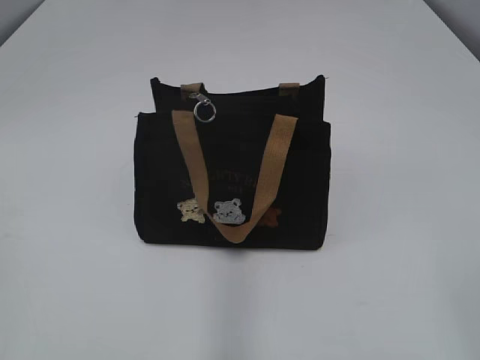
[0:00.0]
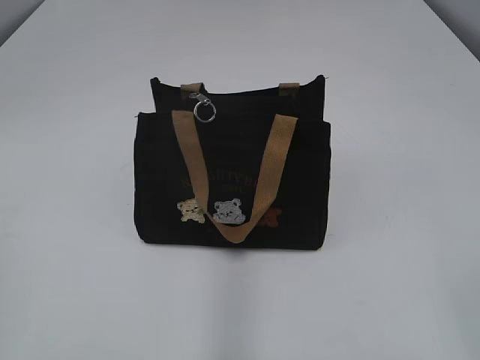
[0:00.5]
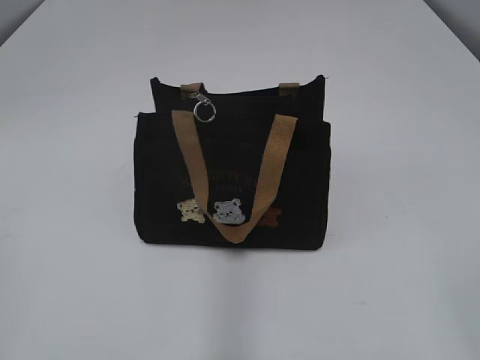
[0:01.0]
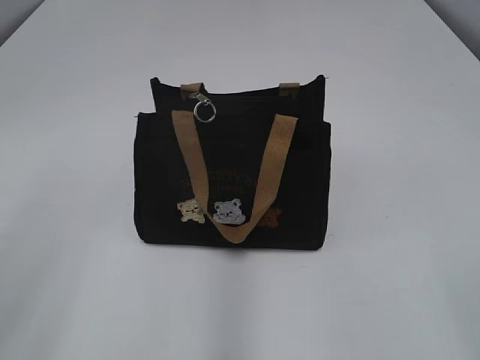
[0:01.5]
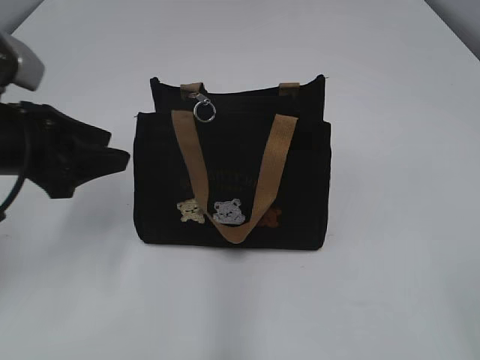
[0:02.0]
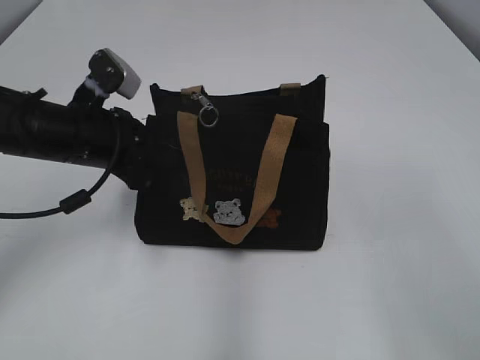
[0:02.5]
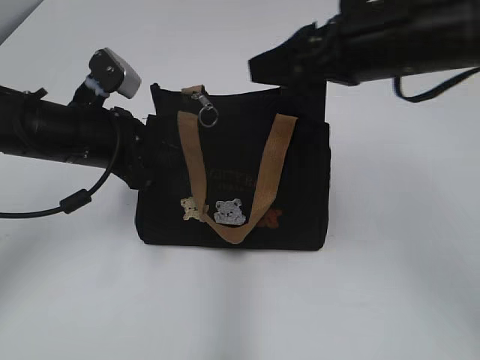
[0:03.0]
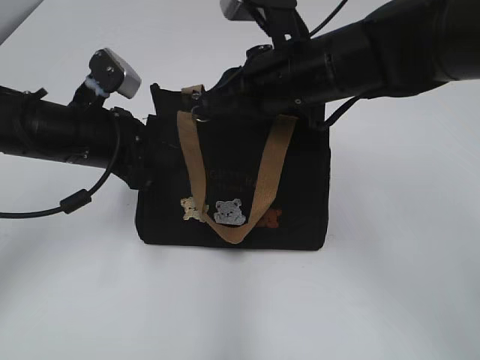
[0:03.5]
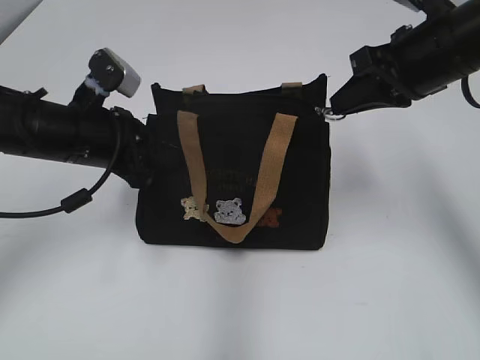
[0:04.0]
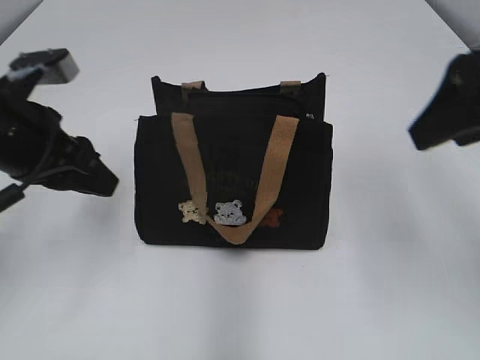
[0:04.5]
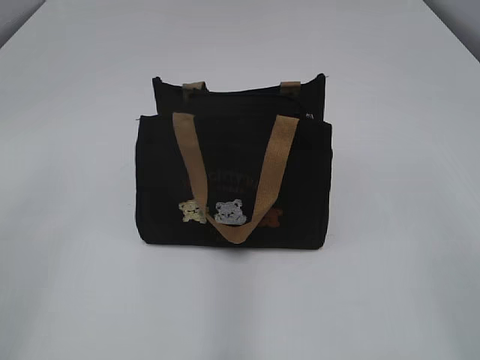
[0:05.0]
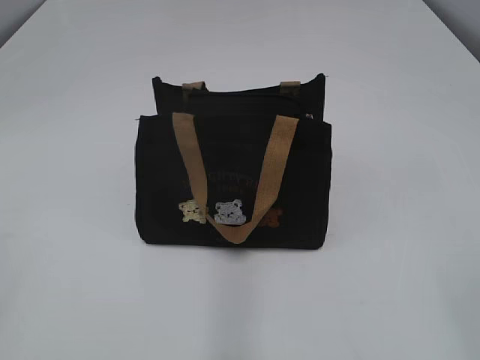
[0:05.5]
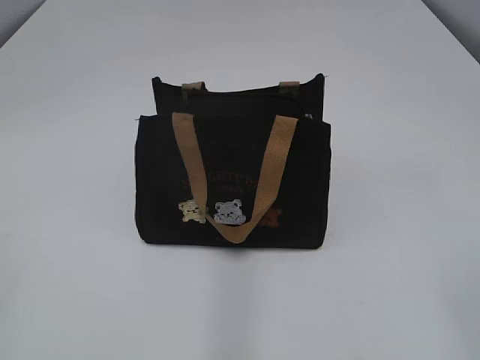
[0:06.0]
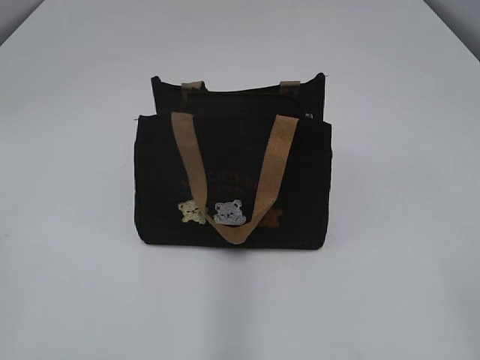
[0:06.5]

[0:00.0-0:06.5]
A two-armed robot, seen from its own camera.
Step, 0:00.0 to 0:04.0: Pull open the zipper with your right hand.
0:02.0 to 0:04.5: The right gripper heads forward, covering about 25 cm, and closes, then opens again, while the left gripper closes, then reopens.
0:04.5 to 0:06.5: Both grippers travel together backward, some 25 cm.

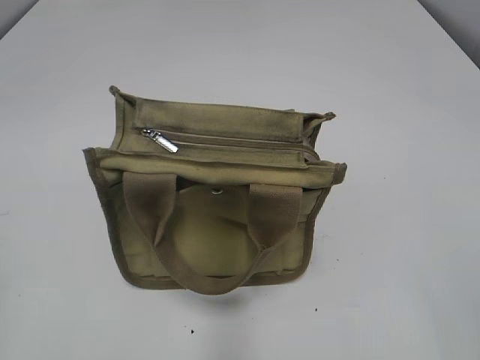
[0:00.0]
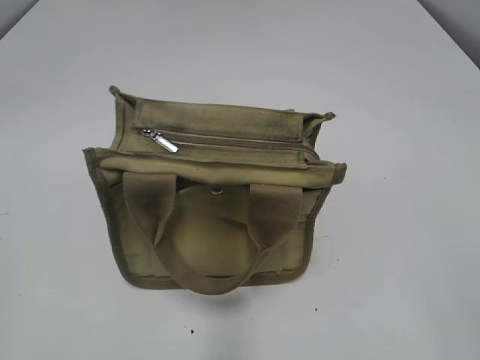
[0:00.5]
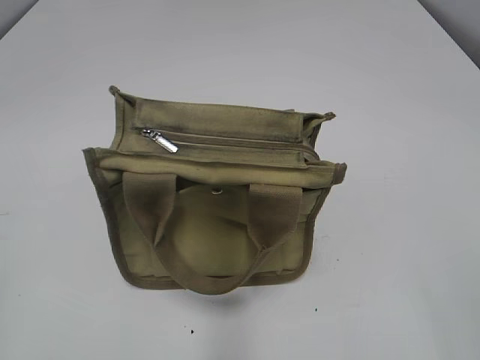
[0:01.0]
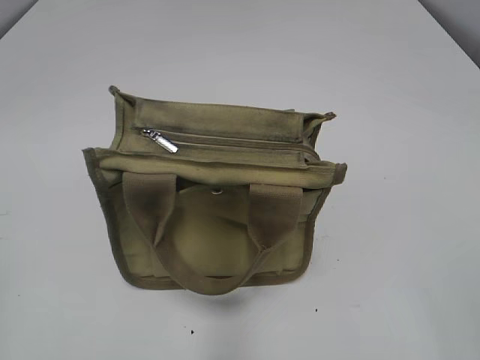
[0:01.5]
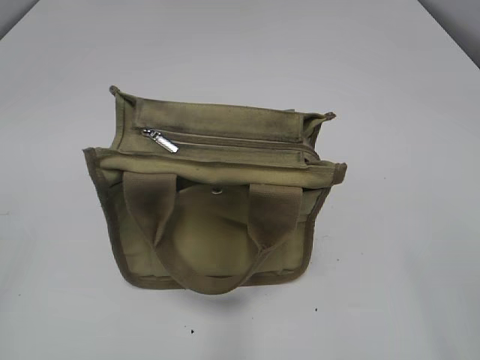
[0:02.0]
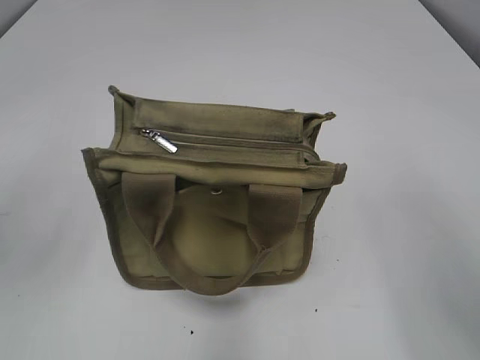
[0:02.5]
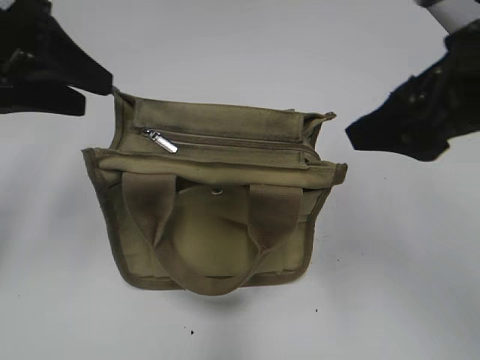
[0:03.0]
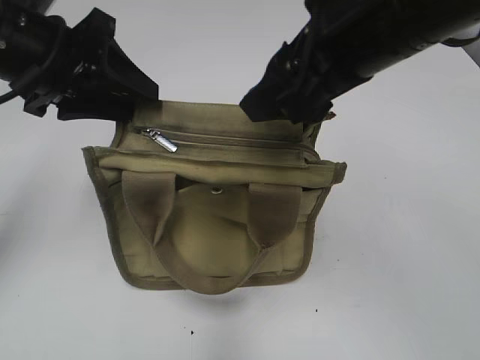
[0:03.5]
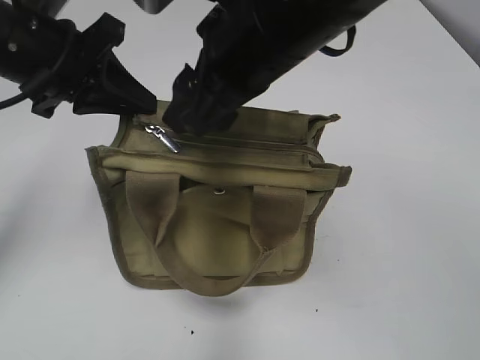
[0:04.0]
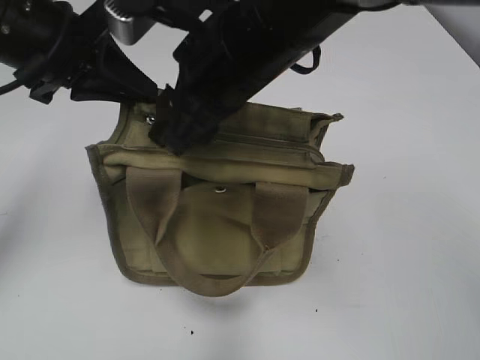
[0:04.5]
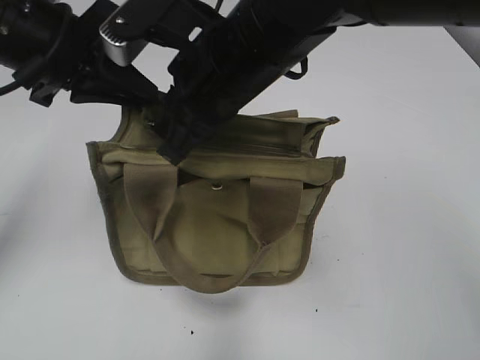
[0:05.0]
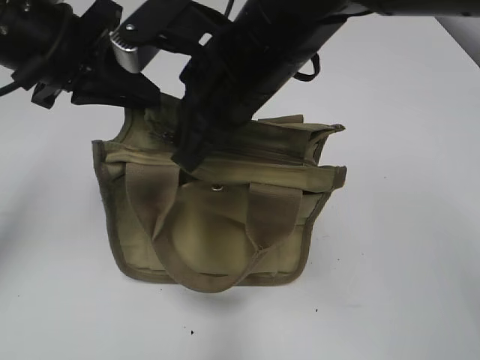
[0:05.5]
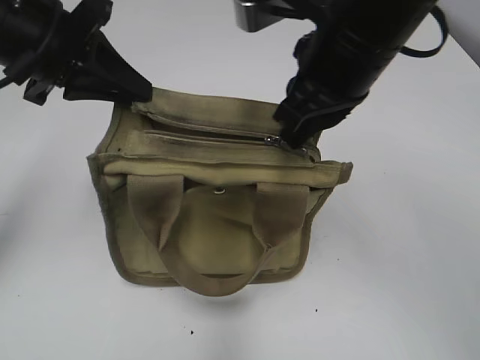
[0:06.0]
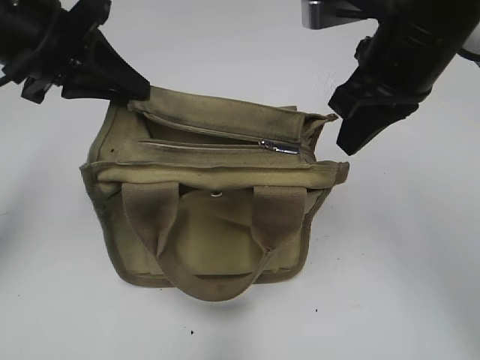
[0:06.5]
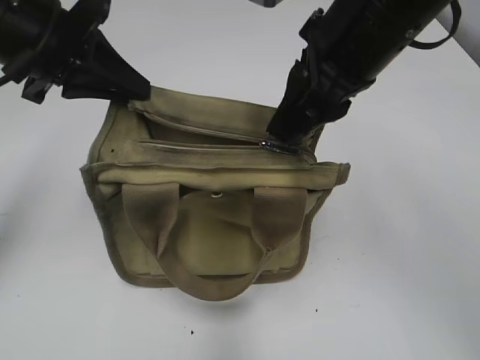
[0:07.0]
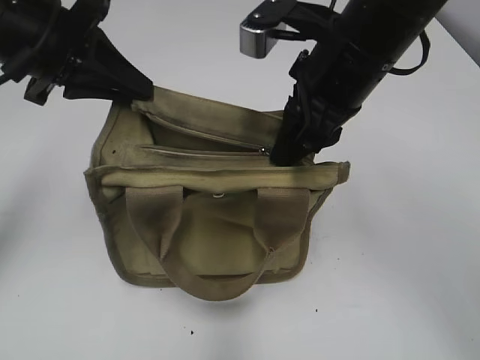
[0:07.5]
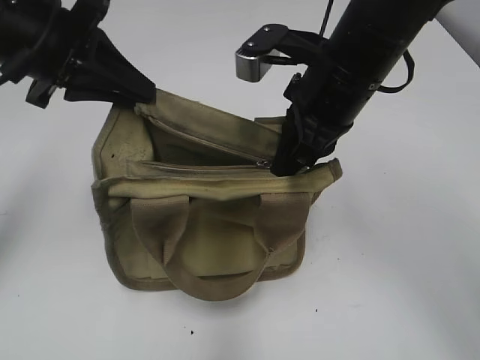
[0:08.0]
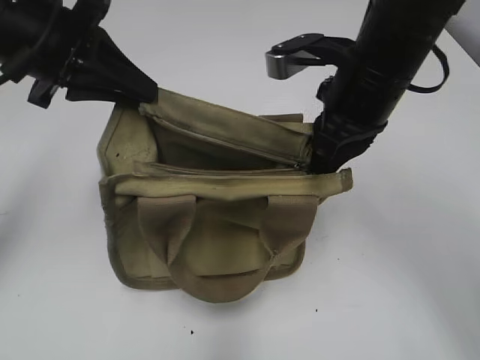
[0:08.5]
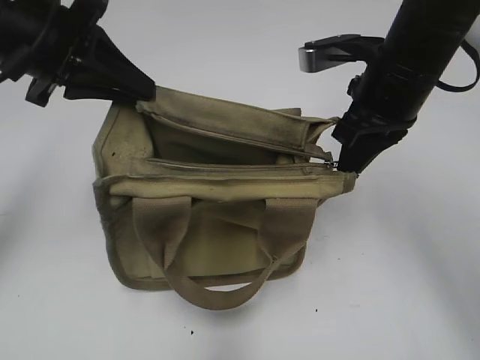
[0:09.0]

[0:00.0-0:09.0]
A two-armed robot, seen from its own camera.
Step, 0:00.0 to 0:09.0: Pull open the zipper with your right hand.
0:02.0 to 0:04.5: The right gripper goes about 40 cm forward and to the left. The left gripper moves forward and to the right, some 30 cm, and closes its fingers.
0:04.5 to 0:07.0: The right gripper shifts about 10 cm to the right, and closes.
0:07.0 to 0:09.0: The right gripper moves downward and to the right, about 10 cm, and closes its fingers.

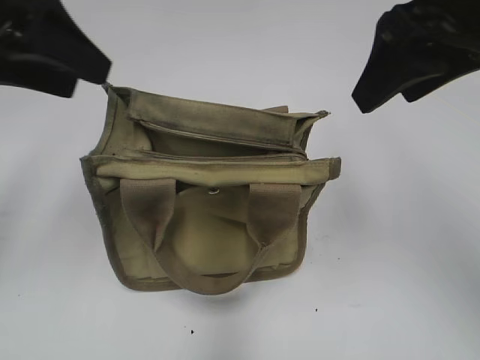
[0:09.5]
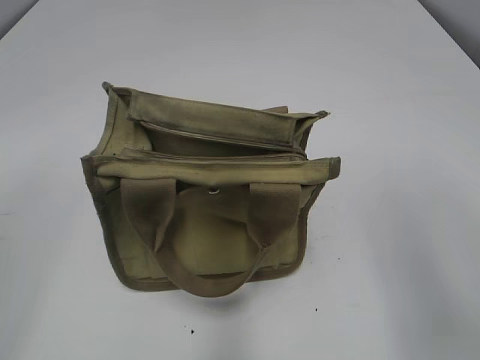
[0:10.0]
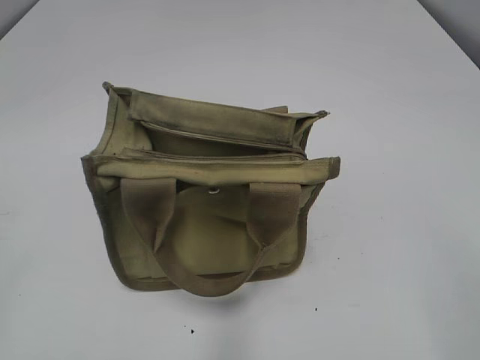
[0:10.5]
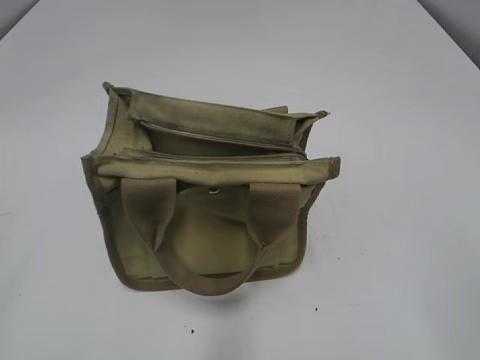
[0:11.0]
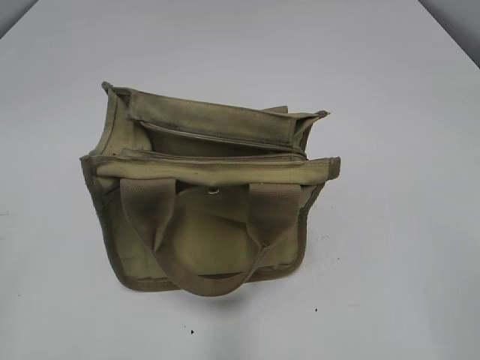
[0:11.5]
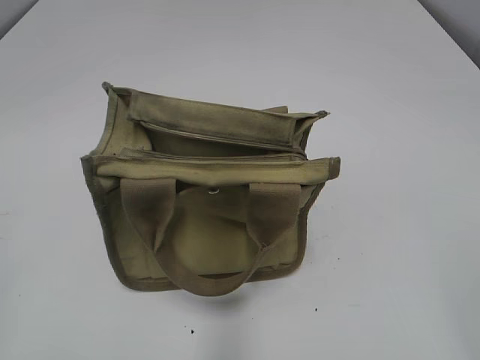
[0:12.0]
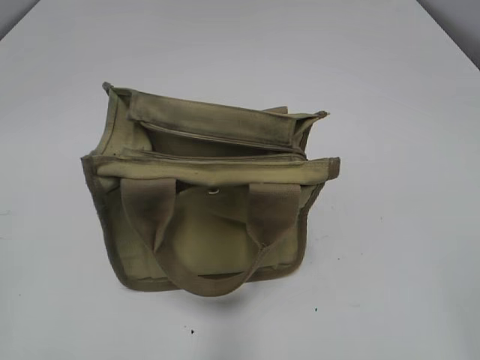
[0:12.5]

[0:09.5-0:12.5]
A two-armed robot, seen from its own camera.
0:09.5 to 0:11.0: The left gripper travels backward and to the left by roughly 30 cm. Meanwhile the right gripper travels backward by roughly 25 cm.

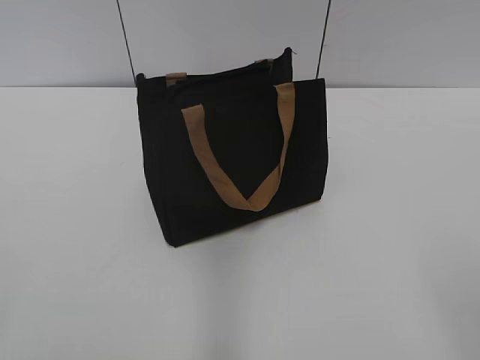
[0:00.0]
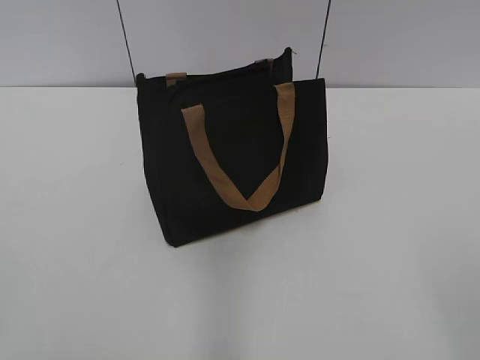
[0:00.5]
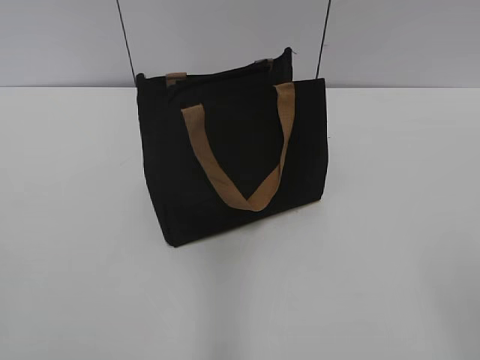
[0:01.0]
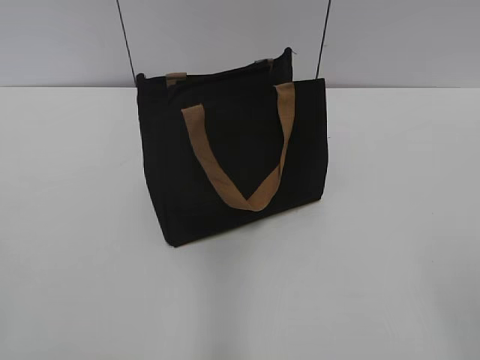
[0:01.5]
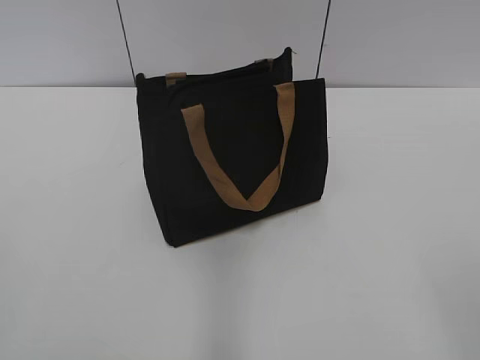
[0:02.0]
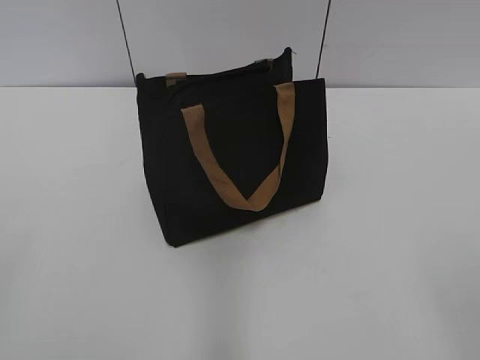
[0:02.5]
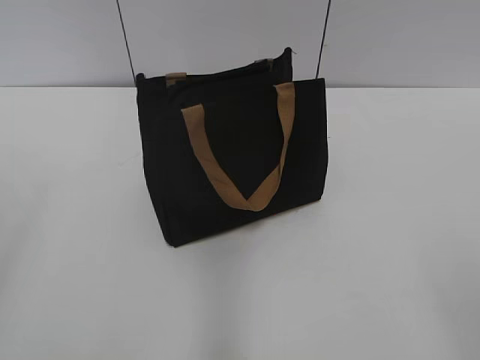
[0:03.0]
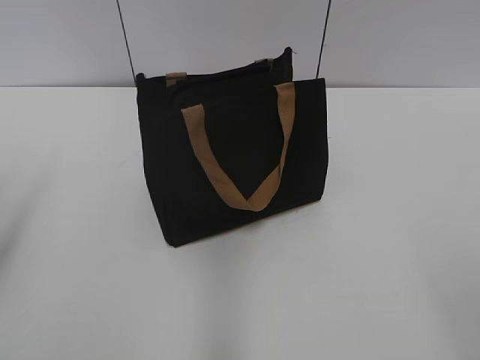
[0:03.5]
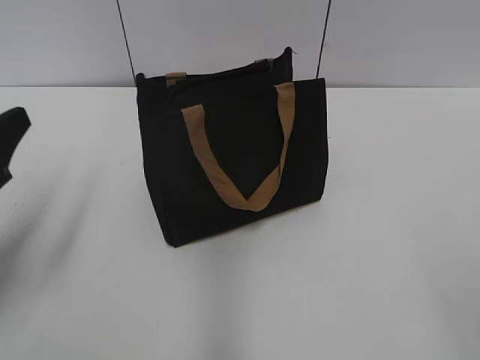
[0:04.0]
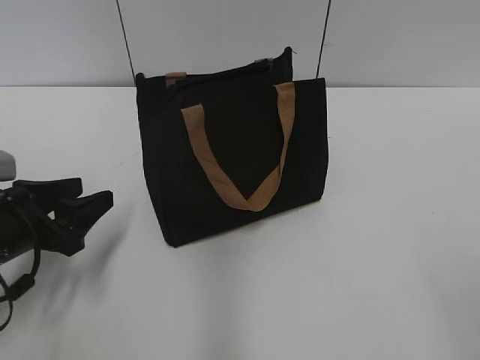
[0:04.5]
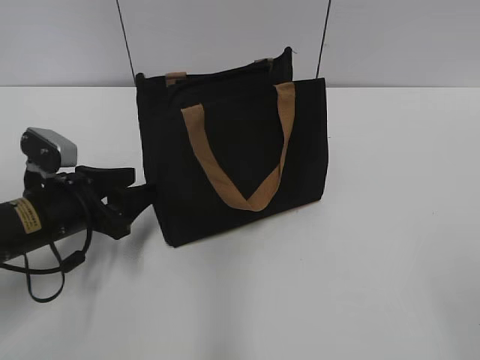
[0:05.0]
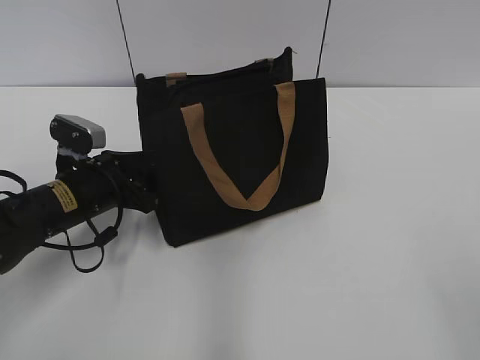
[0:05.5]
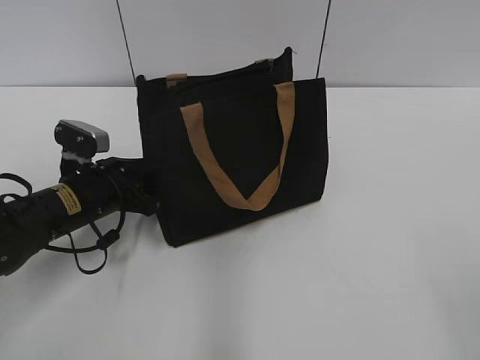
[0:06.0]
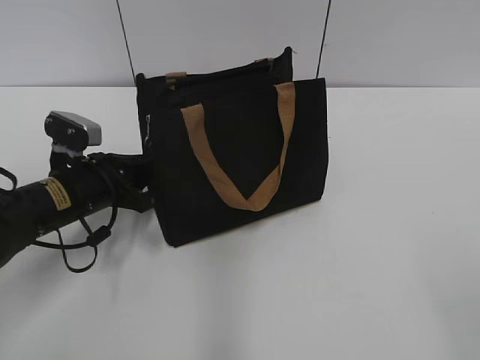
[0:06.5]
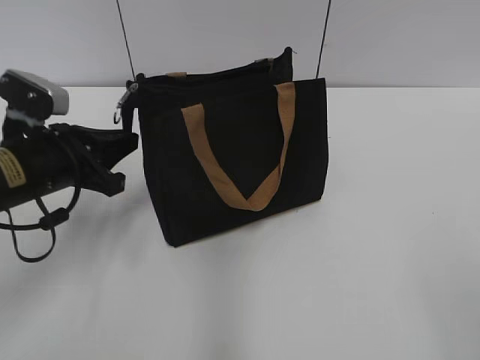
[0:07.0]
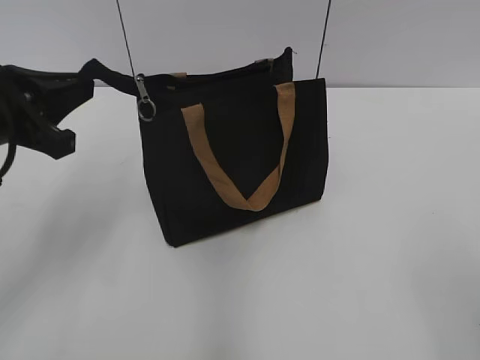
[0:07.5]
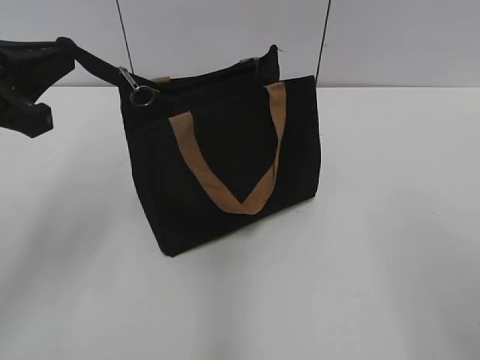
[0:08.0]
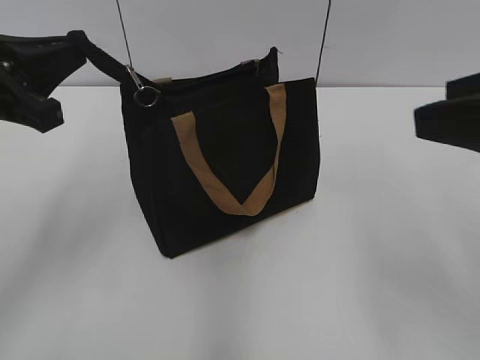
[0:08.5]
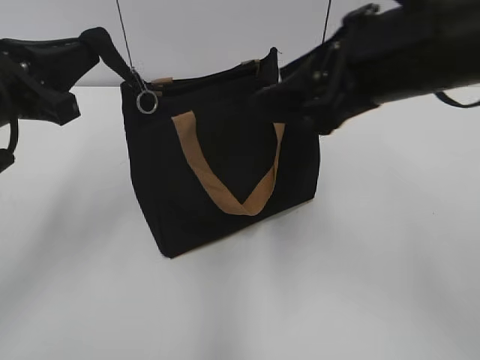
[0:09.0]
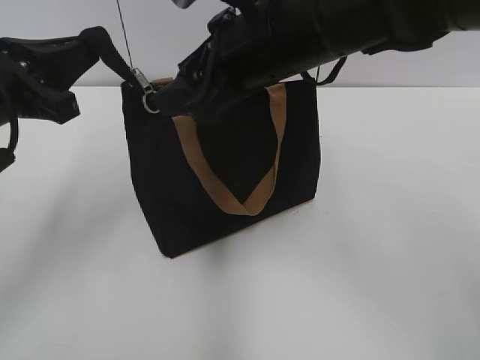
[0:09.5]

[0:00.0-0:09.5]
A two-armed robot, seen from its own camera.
0:02.0 to 0:04.0: The left gripper travels forward by some 20 cm, and opens up.
0:04.0 to 0:05.5: The left gripper heads downward, forward and to the right, covering about 20 cm.
0:05.5 to 0:07.5: The left gripper moves upward and backward, some 15 cm, and closes.
0:07.5 to 0:09.5: The right gripper travels forward and to the left by roughly 35 cm.
